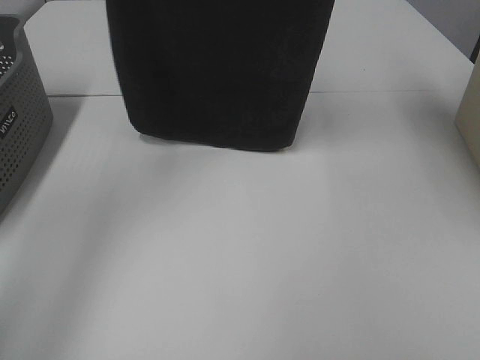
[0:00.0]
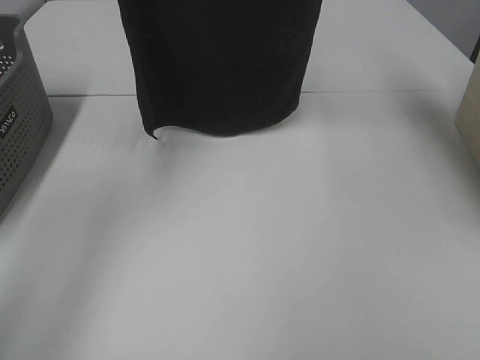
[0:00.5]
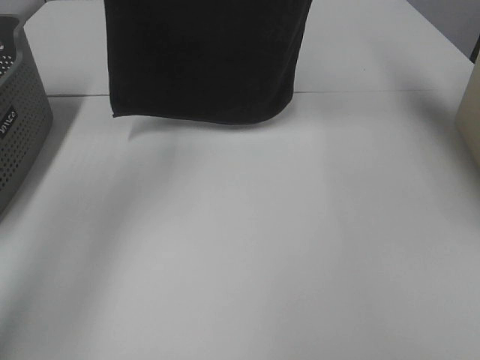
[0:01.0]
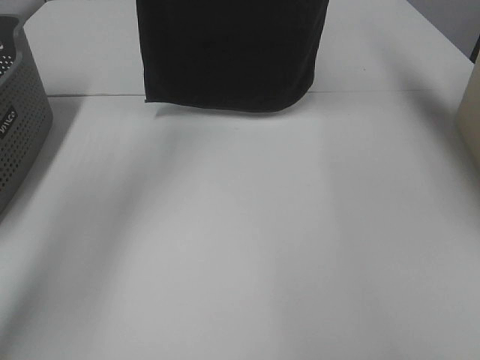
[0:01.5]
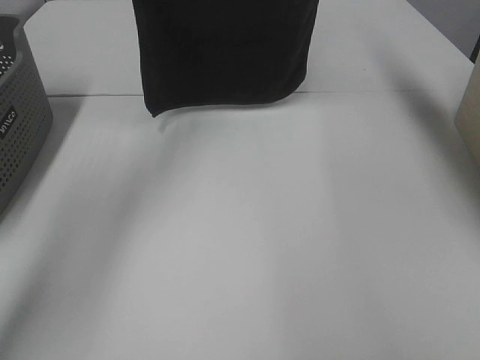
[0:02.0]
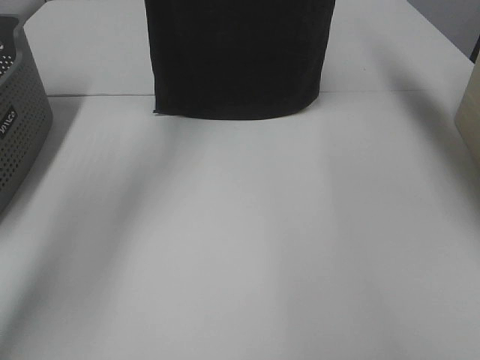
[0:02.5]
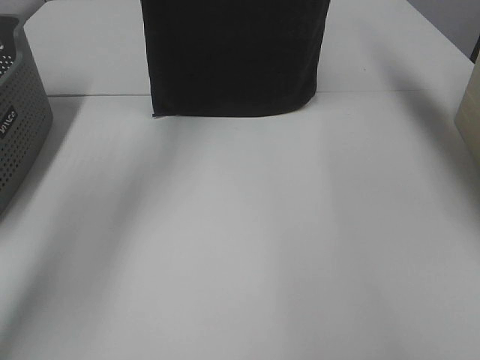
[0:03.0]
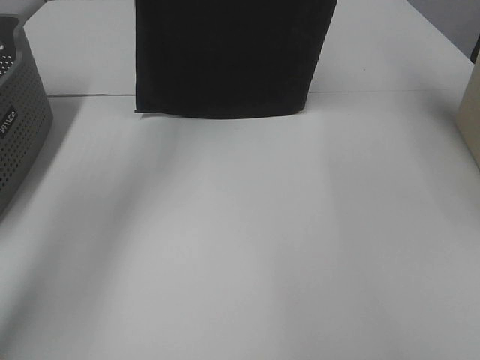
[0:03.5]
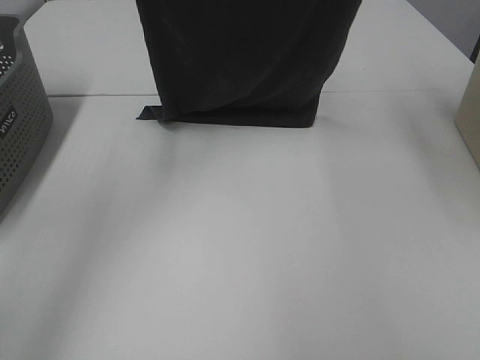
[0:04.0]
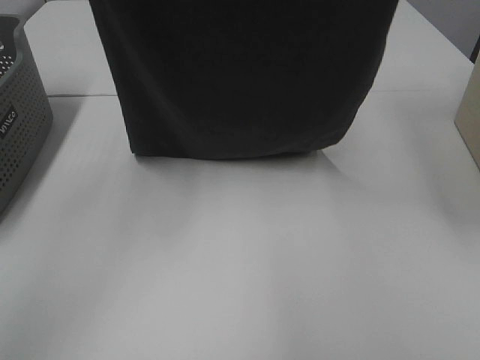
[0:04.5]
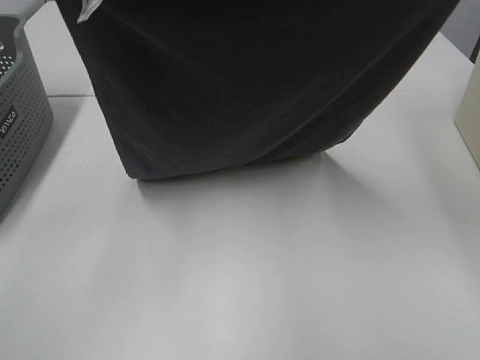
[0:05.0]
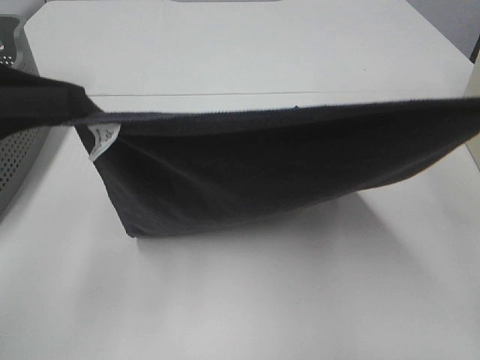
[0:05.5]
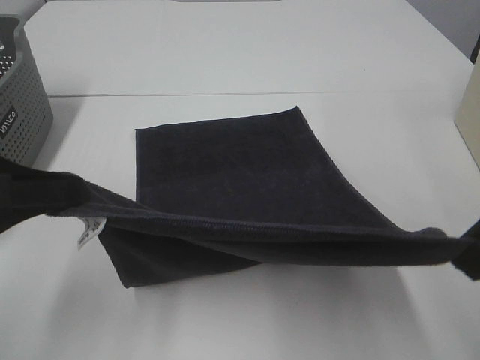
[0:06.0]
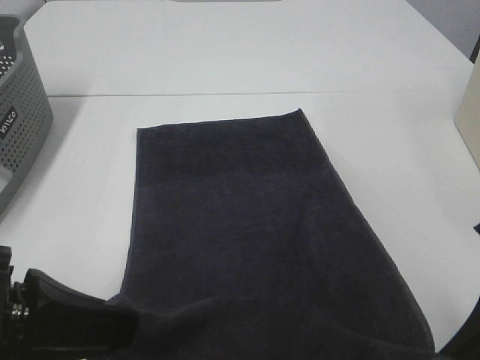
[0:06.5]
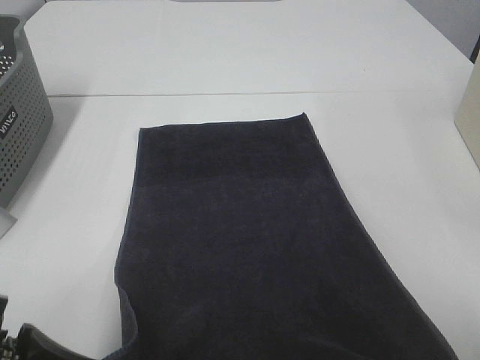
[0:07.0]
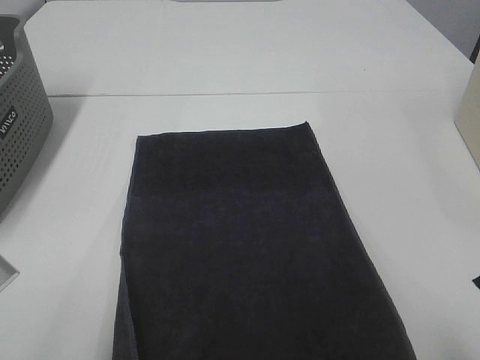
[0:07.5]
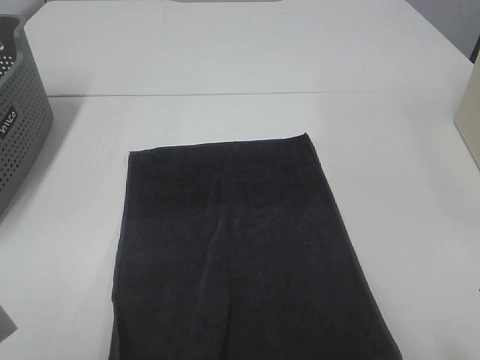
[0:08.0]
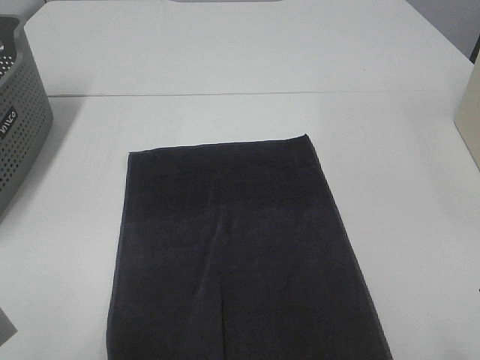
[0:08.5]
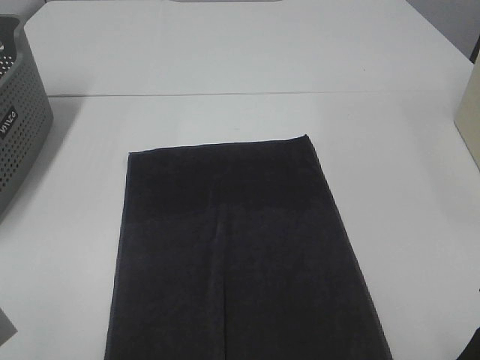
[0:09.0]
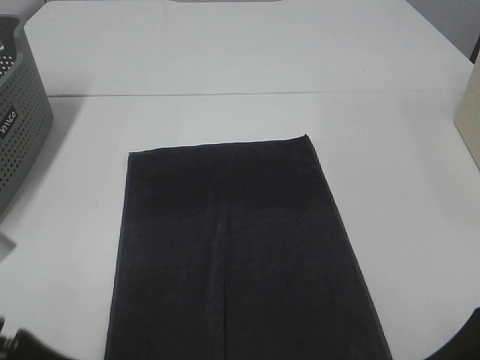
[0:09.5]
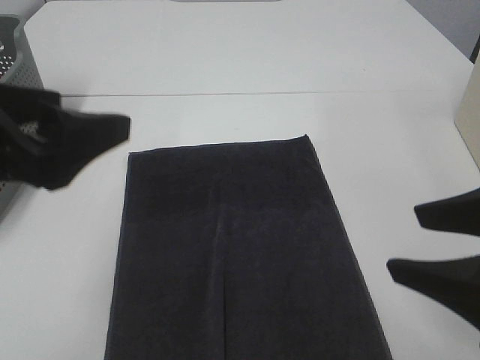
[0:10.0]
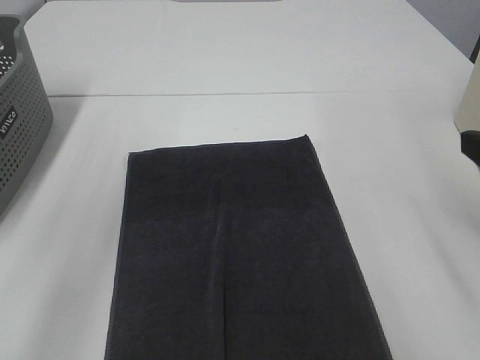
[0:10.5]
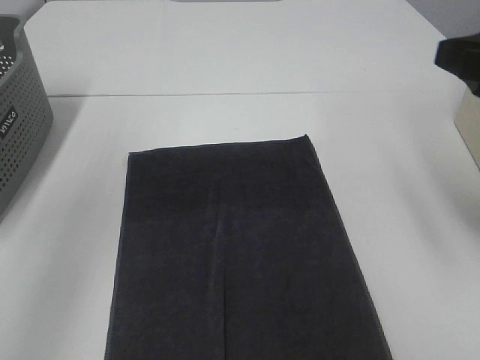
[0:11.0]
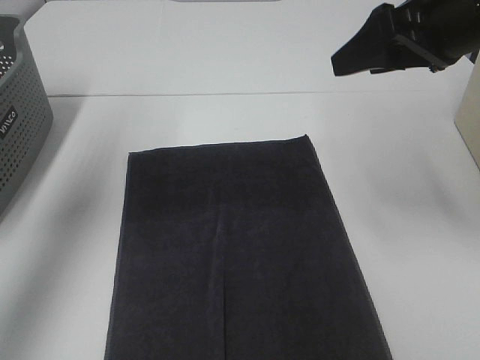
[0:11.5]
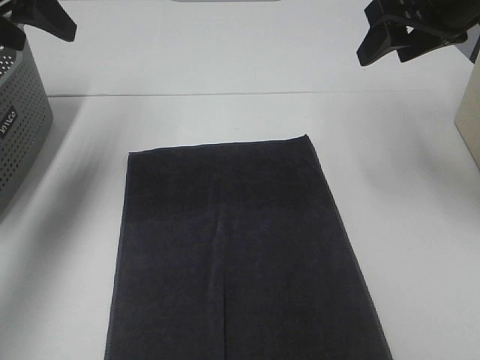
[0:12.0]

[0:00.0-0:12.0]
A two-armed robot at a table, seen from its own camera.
Task of the whole recording: Remove the towel and place it.
Step, 0.0 to 3.5 s: Left hand: spread the grey towel flat on the table.
Step, 0.0 to 3.5 s: Right hand: spread the grey towel flat on the table.
0.0 to 2.0 s: Both grippers travel together forward, some 10 cm.
2.0 to 4.0 s: The left gripper is displaced backward and downward by about 15 cm. Meanwhile the right gripper is displaced backward by approximately 10 cm.
4.0 to 6.0 s: The two grippers go about 30 cm backward and downward.
6.0 to 8.0 s: The left gripper goes approximately 10 cm backward, while the right gripper is displaced downward and backward by approximately 10 cm.
8.0 to 10.0 s: The right gripper travels forward by about 5 cm, and opens. The left gripper travels forward and upward by about 15 cm, and opens its fingers.
10.0 to 12.0 s: The left gripper goes about 20 cm forward and to the left; the right gripper goes roughly 25 cm forward.

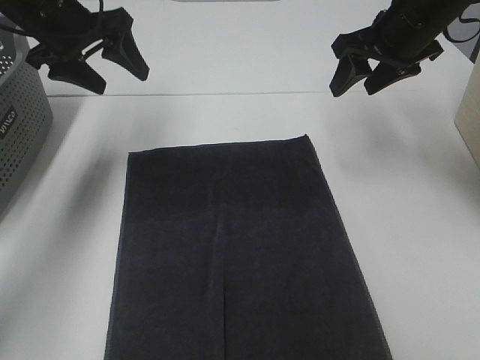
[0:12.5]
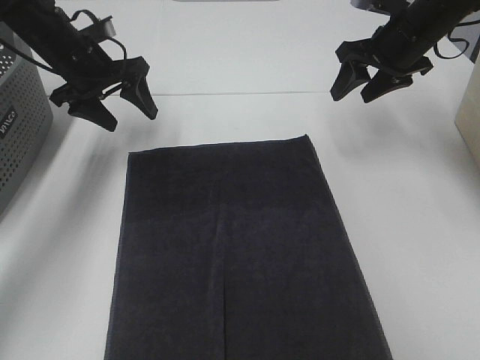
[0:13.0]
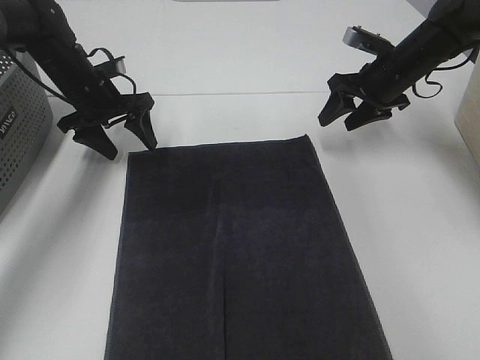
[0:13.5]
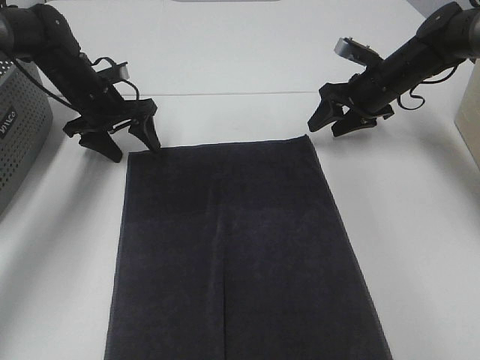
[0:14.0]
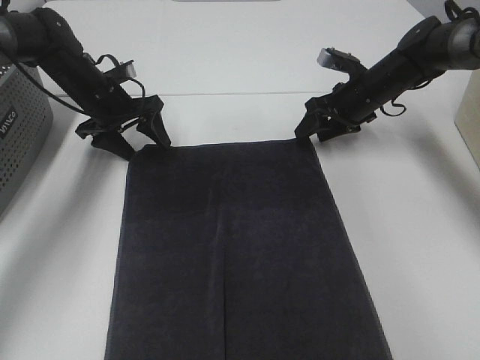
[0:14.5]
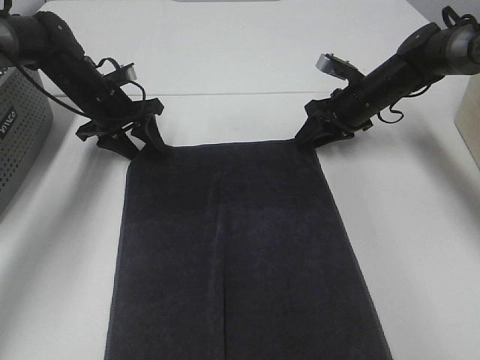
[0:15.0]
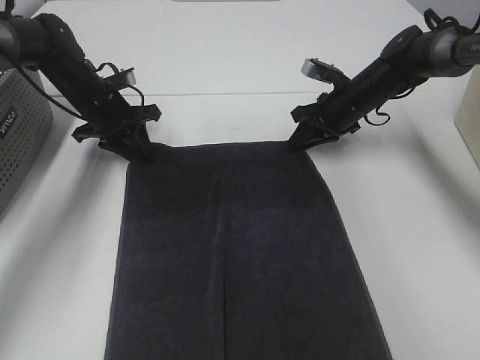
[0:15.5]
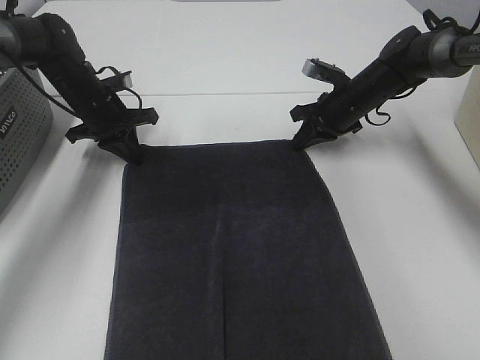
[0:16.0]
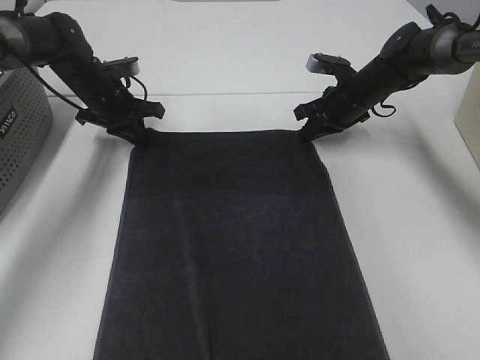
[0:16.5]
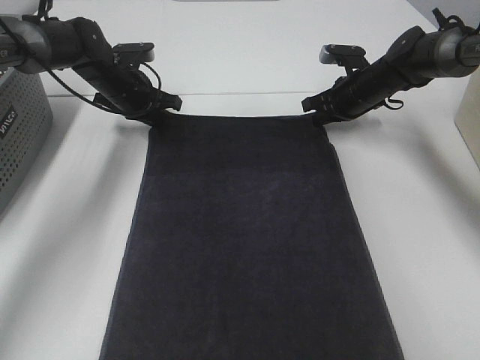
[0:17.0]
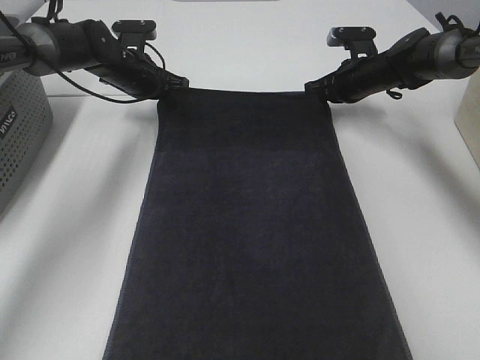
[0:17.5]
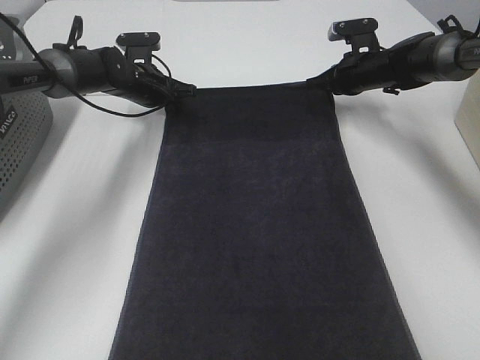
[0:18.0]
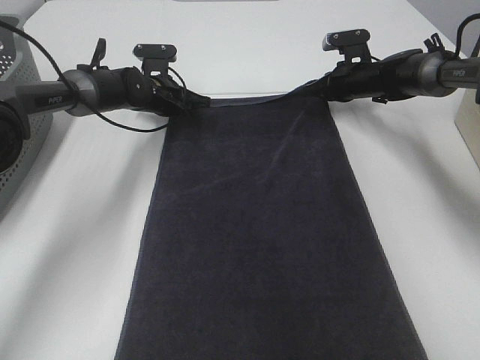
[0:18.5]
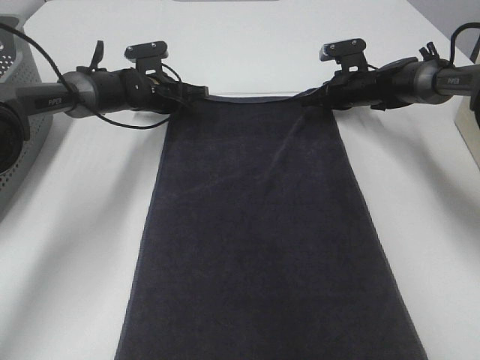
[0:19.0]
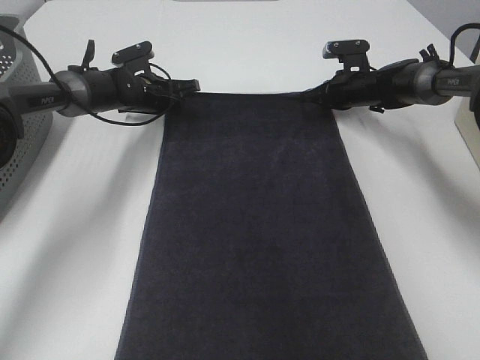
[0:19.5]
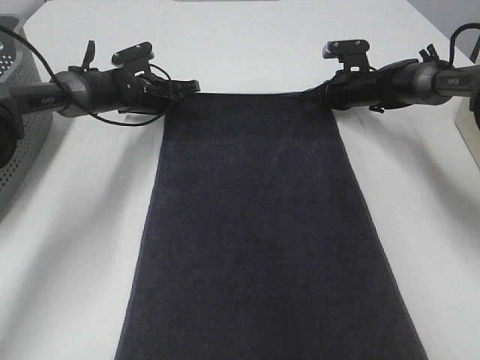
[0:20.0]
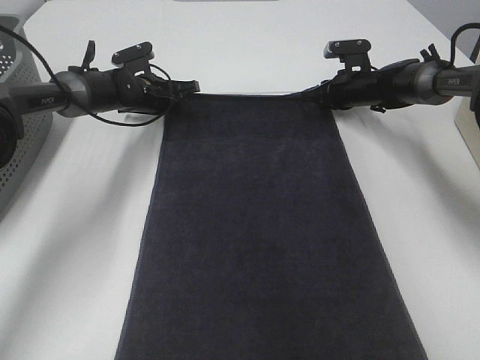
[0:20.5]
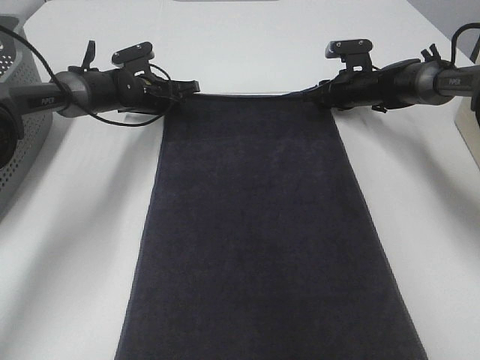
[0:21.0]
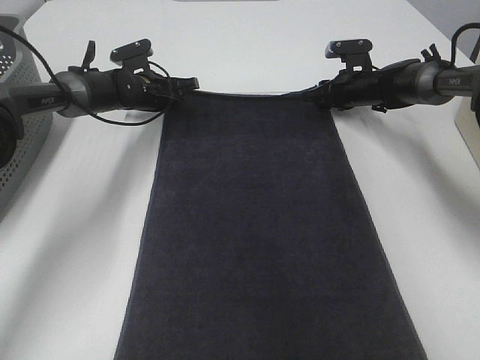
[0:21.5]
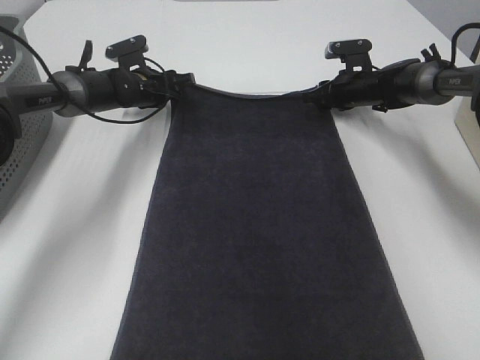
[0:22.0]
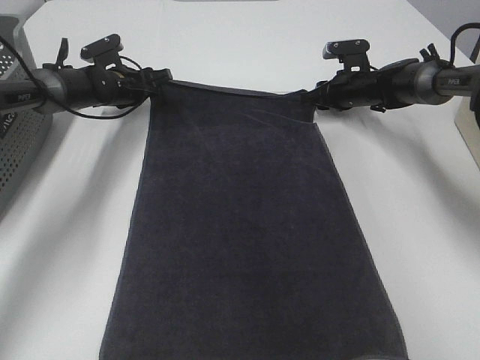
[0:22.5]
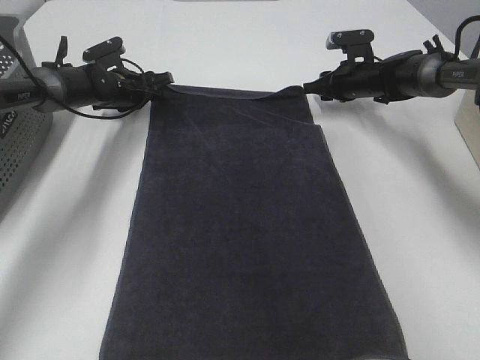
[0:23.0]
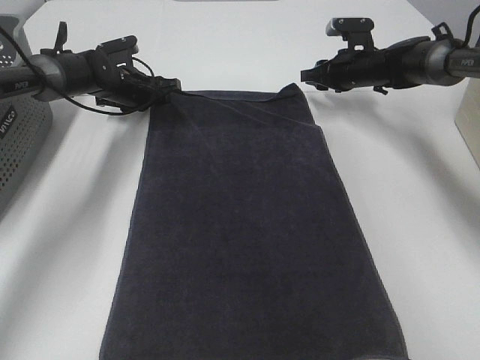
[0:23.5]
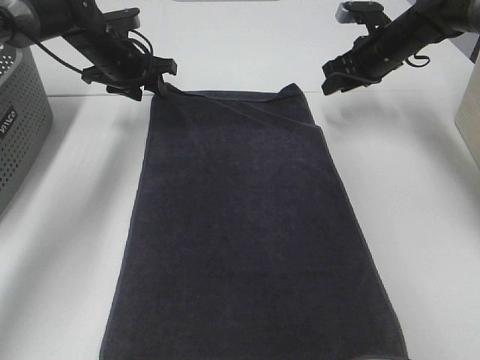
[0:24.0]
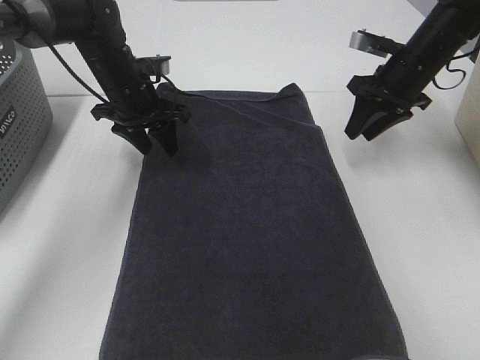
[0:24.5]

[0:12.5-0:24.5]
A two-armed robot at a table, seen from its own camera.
Task of the whole recording: Remove the towel and place it.
Step, 12.5 to 15.5 s: Left hand:adjust the gray towel.
Step, 12.5 to 15.5 s: Right hand:adjust the gray towel.
12.5 to 14.5 s: The grippers both shift downward and forward by some 15 cm.
14.5 to 16.5 s: The left gripper closes up, while the right gripper closes its fingers.
16.5 to 18.5 s: The left gripper moves to the right, about 5 cm. The right gripper travels forward by some 5 cm.
18.5 to 20.5 s: The grippers make only small movements.
20.5 to 22.5 s: The left gripper opens its fingers.
22.5 to 24.5 s: The right gripper travels backward and upward by some 15 cm, while the left gripper shifts some 15 cm backward, upward and to the right.

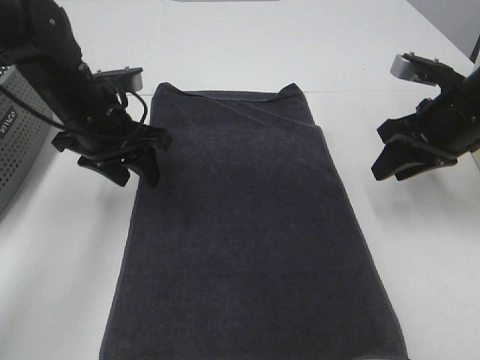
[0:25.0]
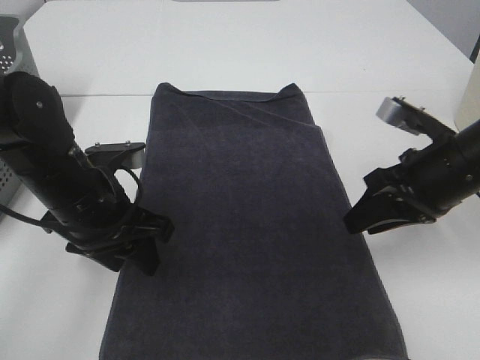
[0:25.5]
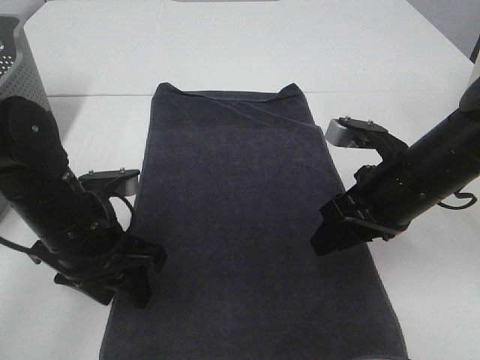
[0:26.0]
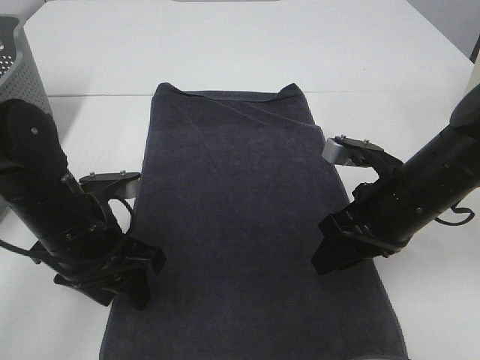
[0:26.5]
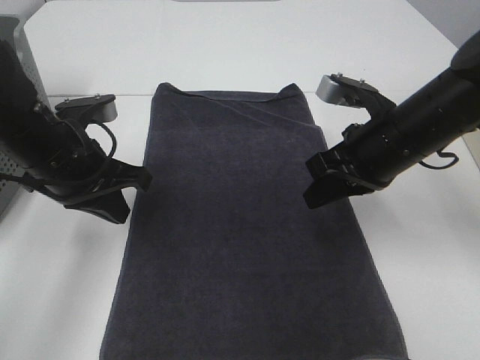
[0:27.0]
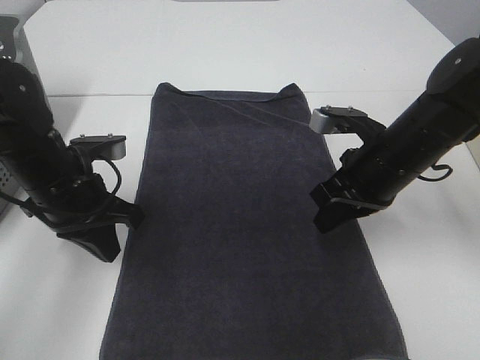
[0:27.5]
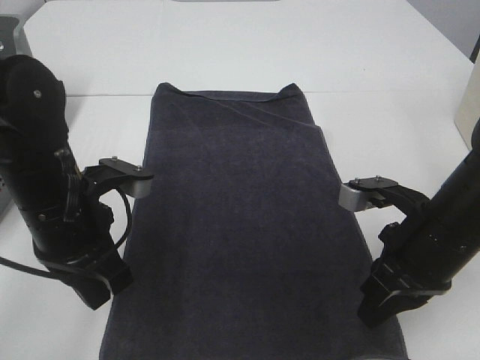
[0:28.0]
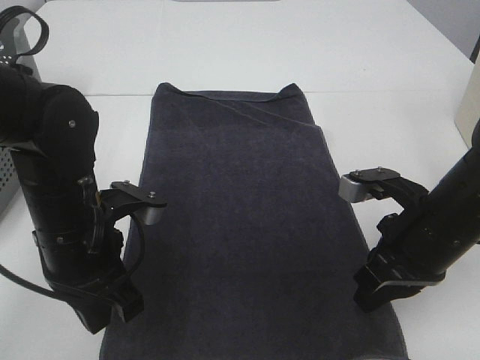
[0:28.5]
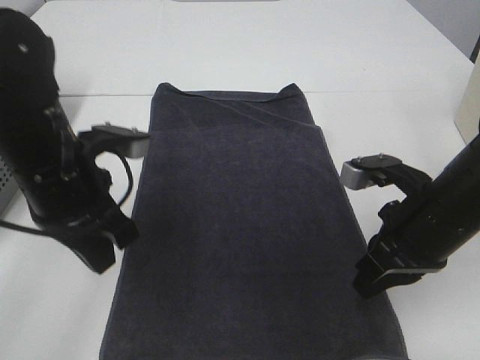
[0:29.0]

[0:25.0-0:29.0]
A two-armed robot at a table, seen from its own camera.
Task of the whole recording: Remove the towel and place it.
25.0 to 27.0 s: The right gripper heads to the left, covering about 10 cm, and closes. The left gripper goes roughly 5 cm backward, and closes up.
27.0 to 29.0 s: The right gripper shifts roughly 5 cm backward.
